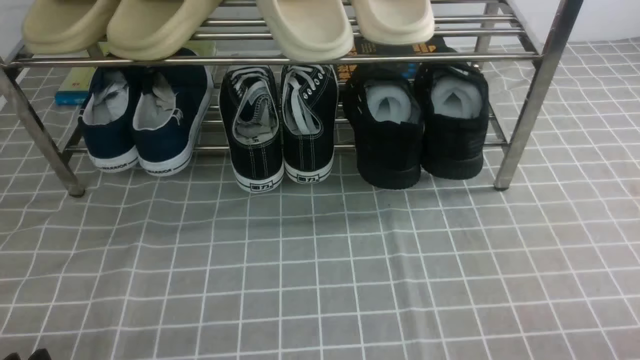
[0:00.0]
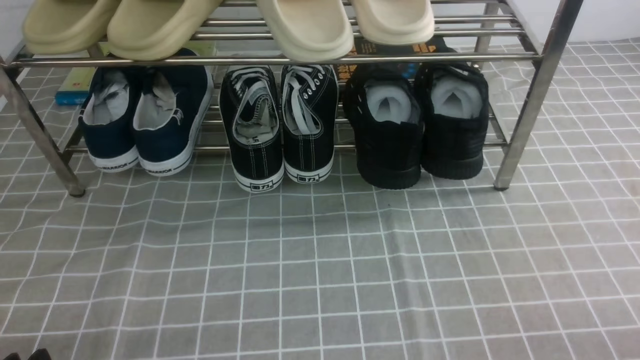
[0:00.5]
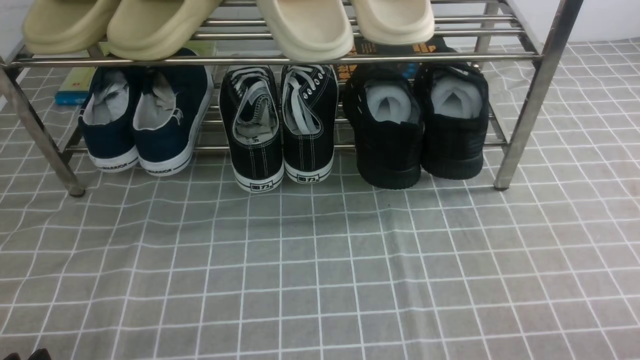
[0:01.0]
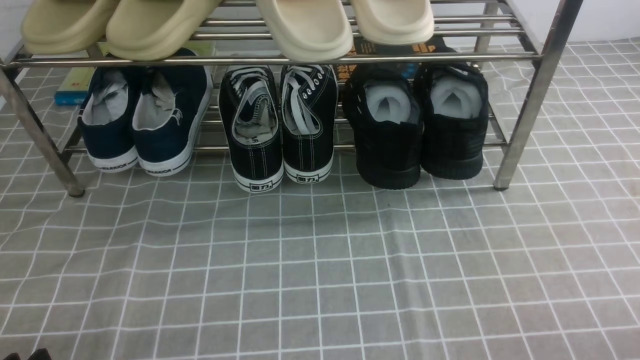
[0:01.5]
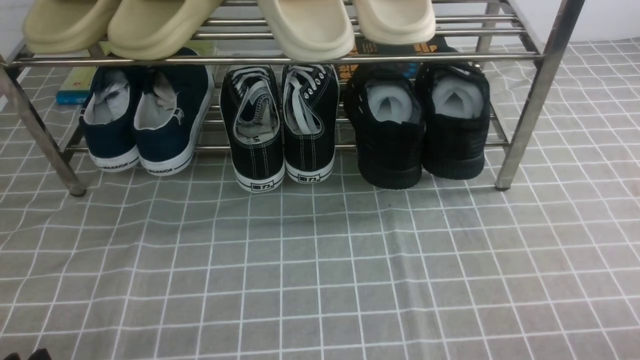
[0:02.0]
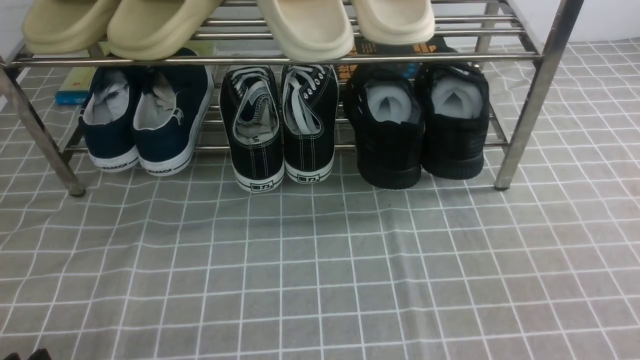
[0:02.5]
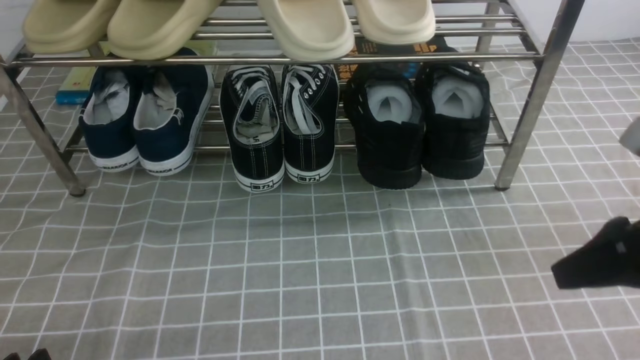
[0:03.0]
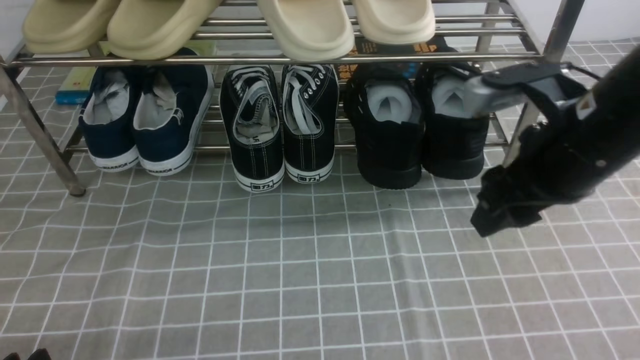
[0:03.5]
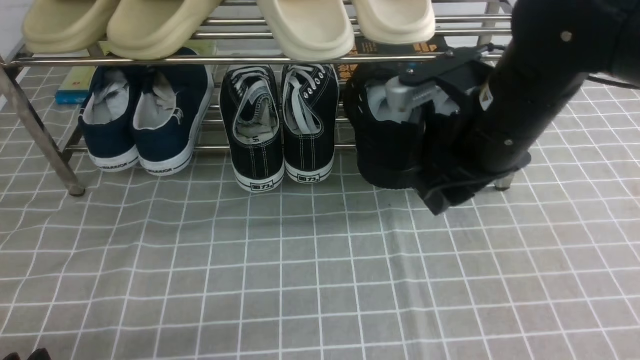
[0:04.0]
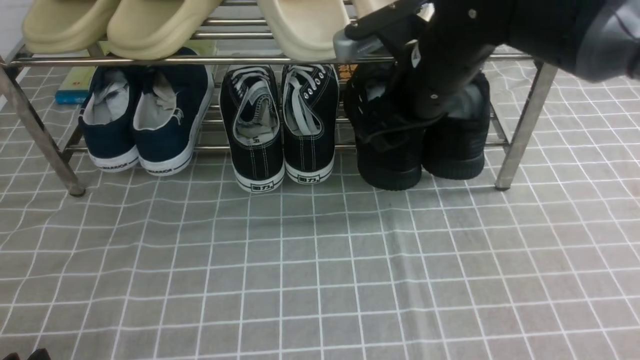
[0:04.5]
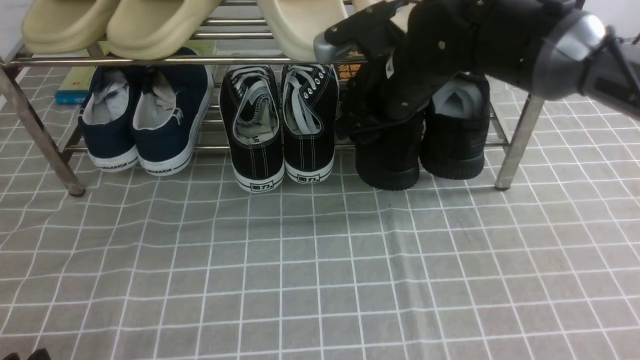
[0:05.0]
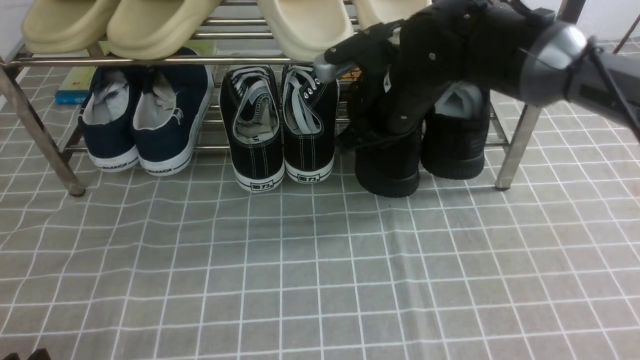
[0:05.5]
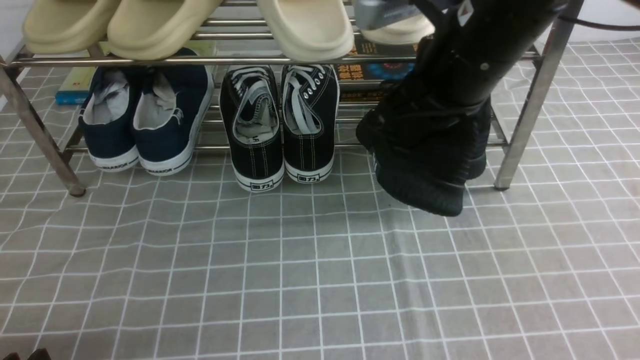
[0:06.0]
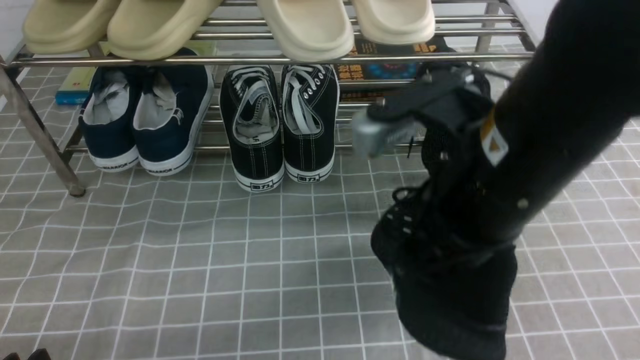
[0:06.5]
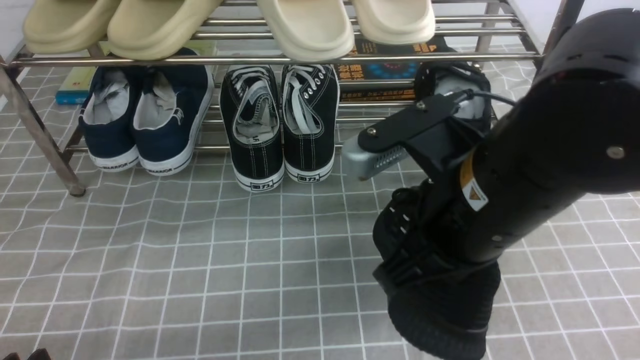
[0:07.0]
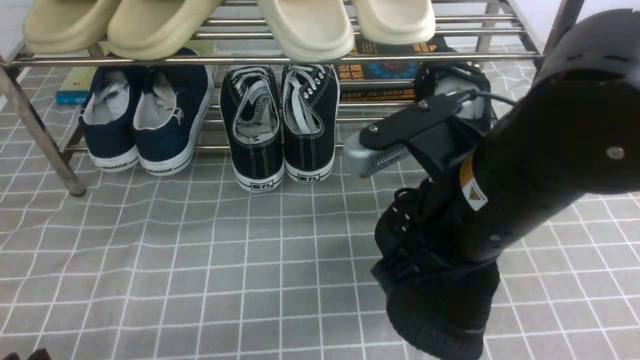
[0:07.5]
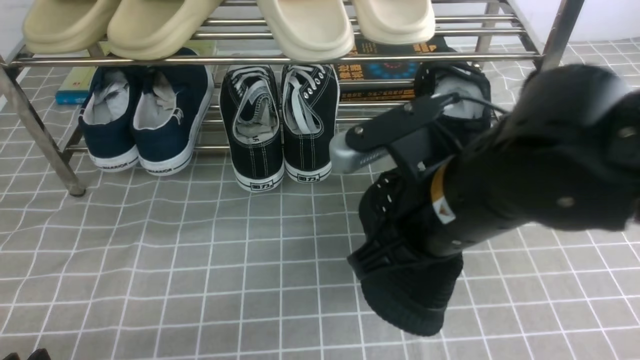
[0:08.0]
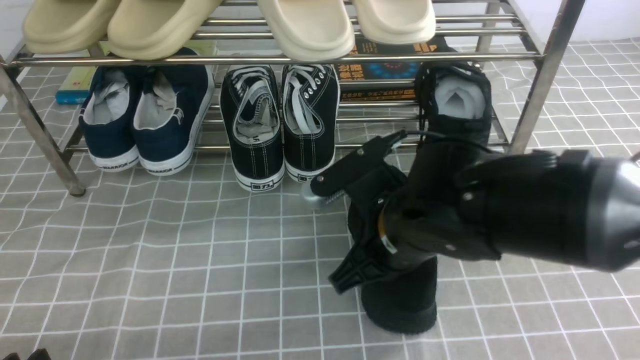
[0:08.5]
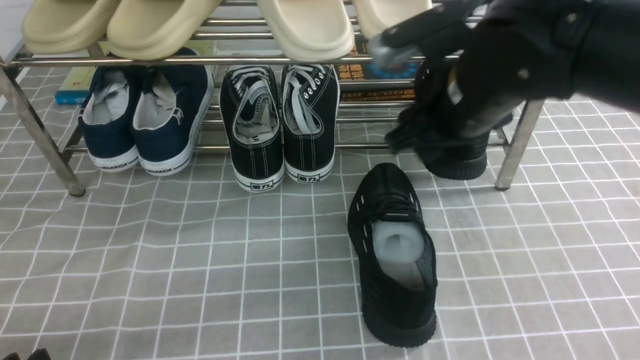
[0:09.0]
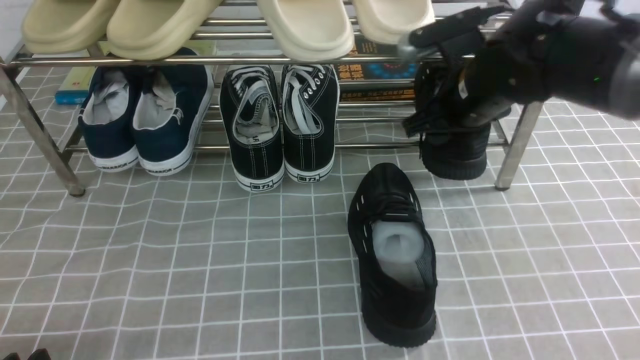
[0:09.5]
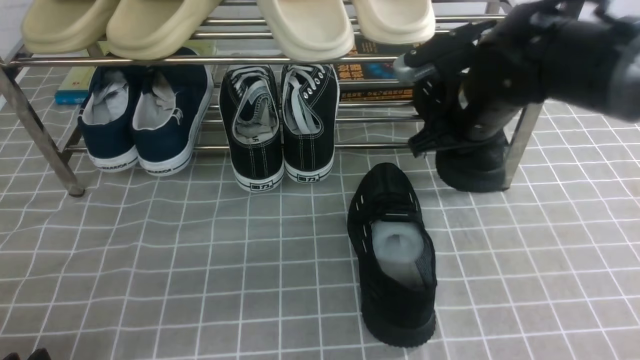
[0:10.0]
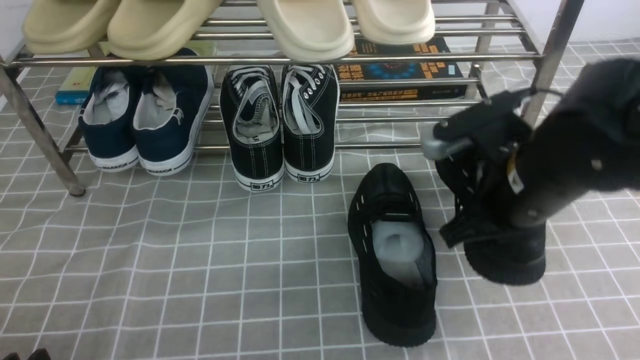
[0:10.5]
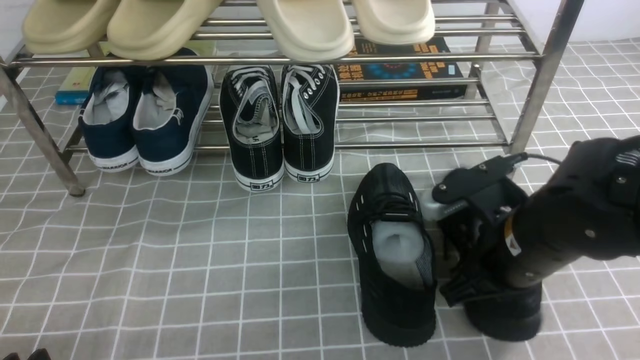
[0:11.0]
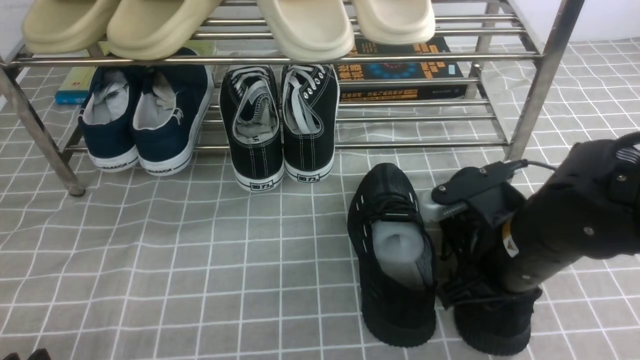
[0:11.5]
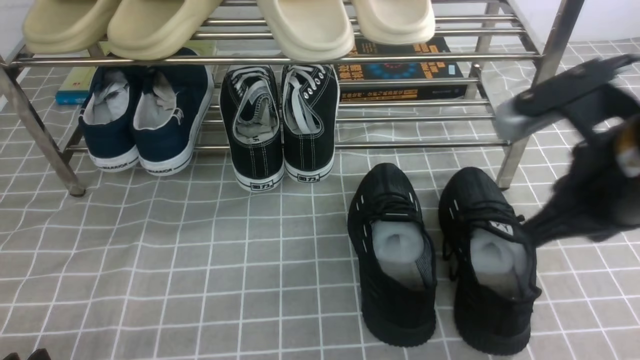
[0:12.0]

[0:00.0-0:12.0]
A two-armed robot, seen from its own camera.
Step, 0:00.0 to 0:06.0: use the right arm to clamp a shoe on the right side of the shoe rack.
Step, 0:06.5 to 0:08.5: use the right arm to take out the clamped shoe from the shoe rack and put it down.
Step, 0:09.0 to 0:10.0: use the right arm to clamp a shoe on the right side of the shoe rack.
Step, 0:10.5 to 0:11.5: use the right arm to take out the clamped shoe from the shoe rack and put it down.
0:02.0 to 0:04.0: The right gripper heads forward, to the left and upward, covering some 35 cm, and opens.
0:04.0 to 0:06.0: The right gripper shifts some 5 cm upward, reaches roughly 10 cm forward, then returns, and closes up.
0:06.0 to 0:08.0: The right gripper travels backward and downward by some 10 cm.
0:08.0 to 0:10.0: The right gripper travels forward and to the right by roughly 15 cm, and opens and closes again.
0:10.0 to 0:12.0: The right gripper travels backward by approximately 15 cm.
